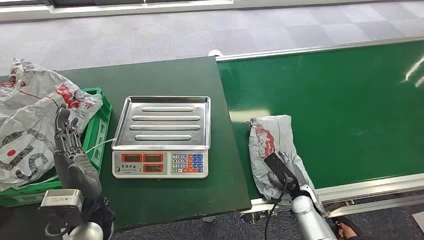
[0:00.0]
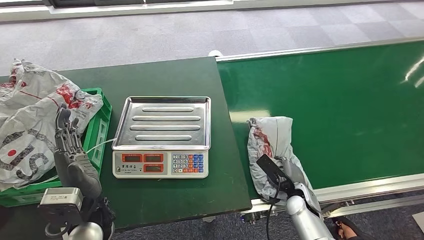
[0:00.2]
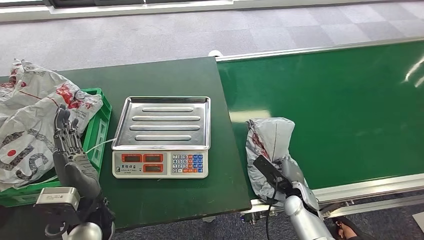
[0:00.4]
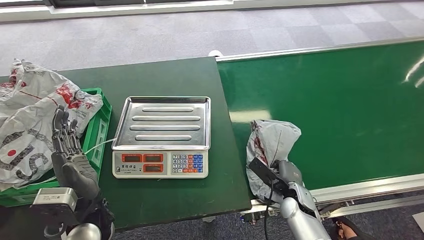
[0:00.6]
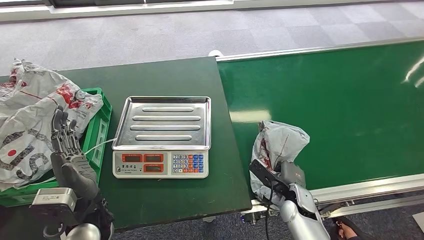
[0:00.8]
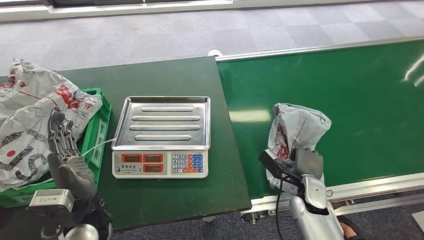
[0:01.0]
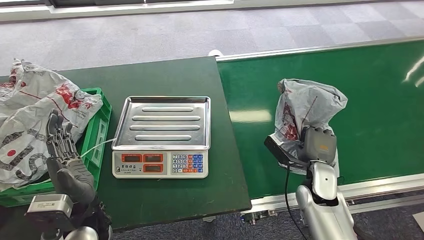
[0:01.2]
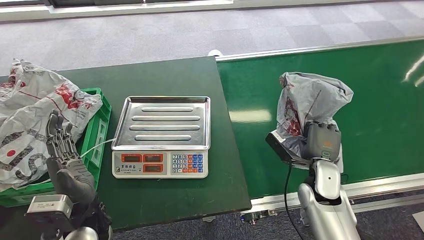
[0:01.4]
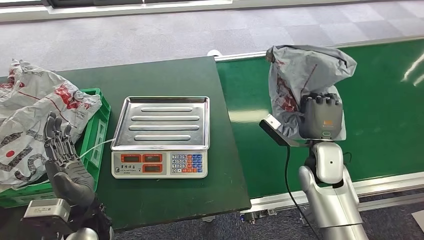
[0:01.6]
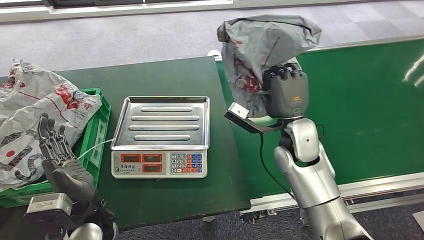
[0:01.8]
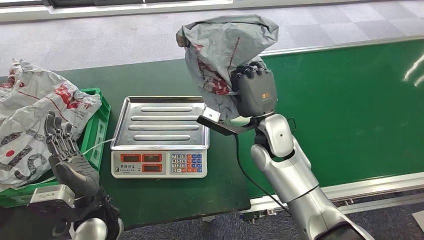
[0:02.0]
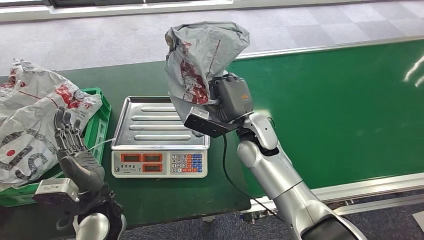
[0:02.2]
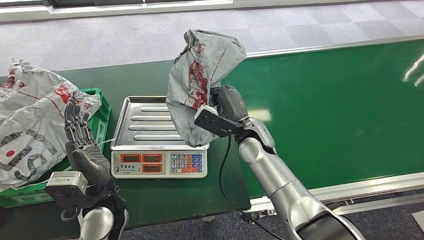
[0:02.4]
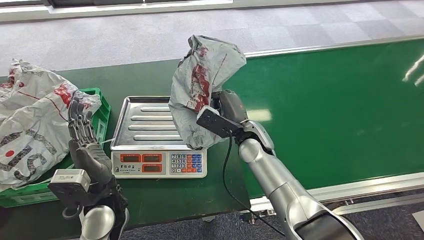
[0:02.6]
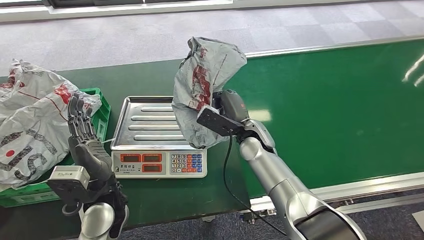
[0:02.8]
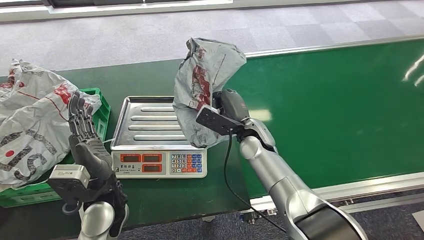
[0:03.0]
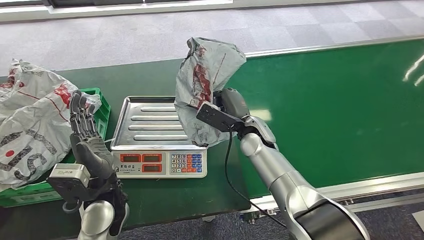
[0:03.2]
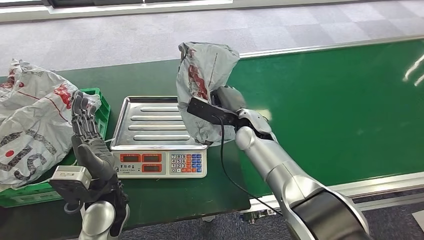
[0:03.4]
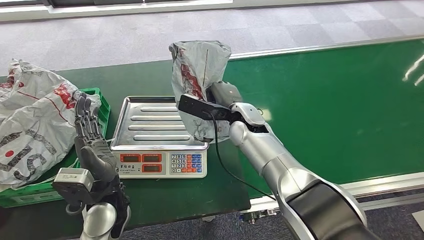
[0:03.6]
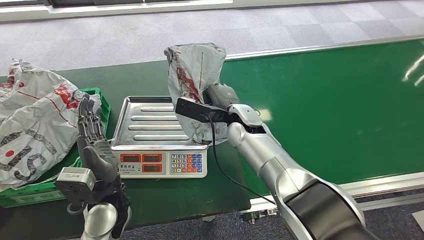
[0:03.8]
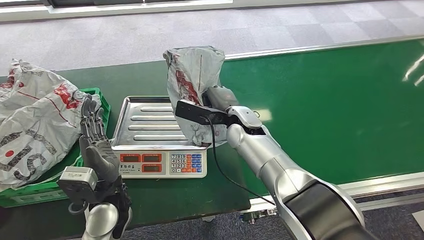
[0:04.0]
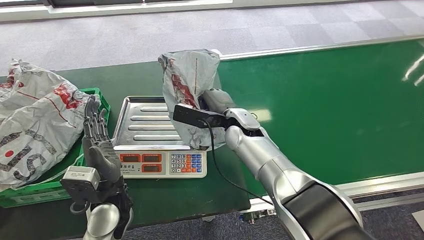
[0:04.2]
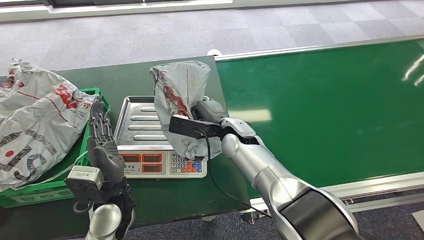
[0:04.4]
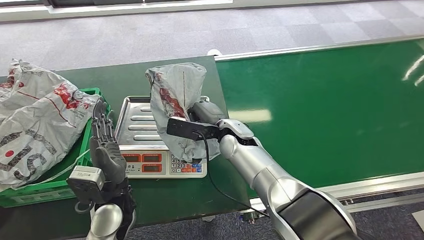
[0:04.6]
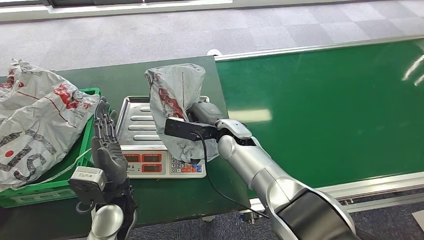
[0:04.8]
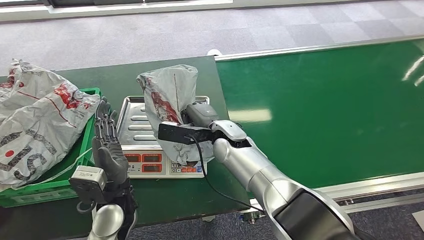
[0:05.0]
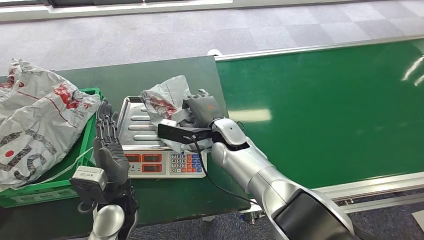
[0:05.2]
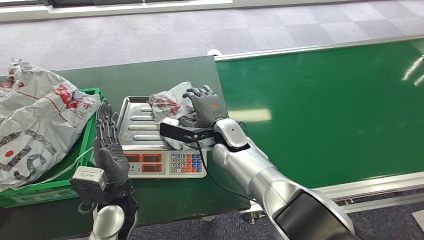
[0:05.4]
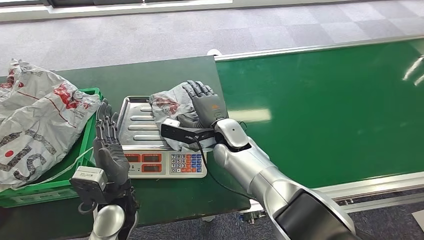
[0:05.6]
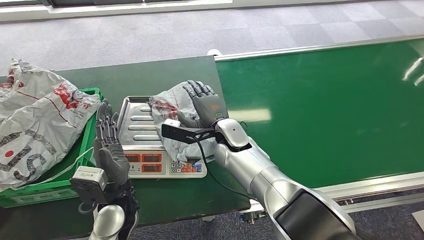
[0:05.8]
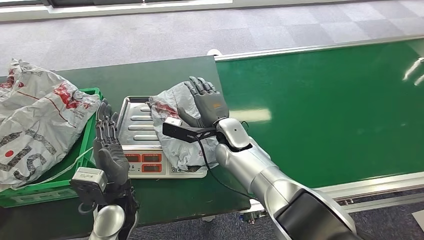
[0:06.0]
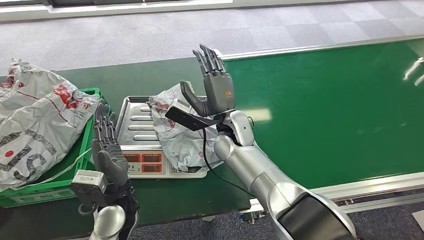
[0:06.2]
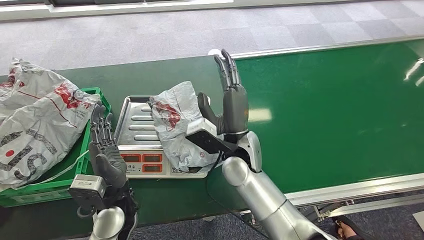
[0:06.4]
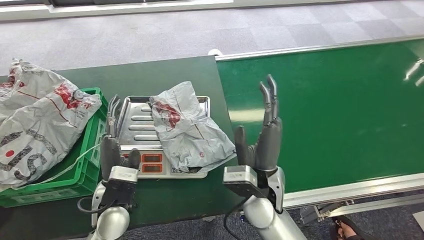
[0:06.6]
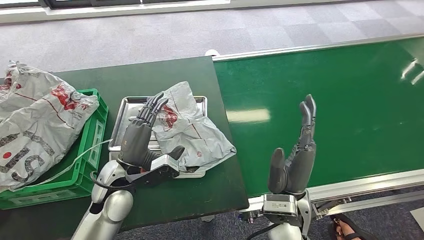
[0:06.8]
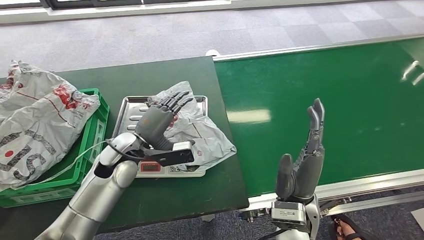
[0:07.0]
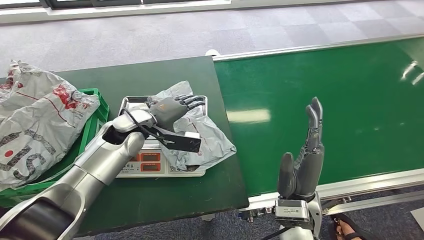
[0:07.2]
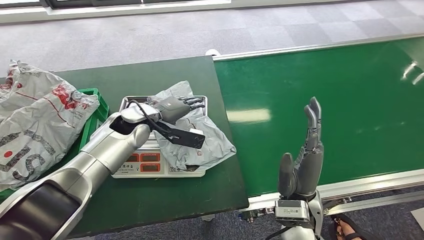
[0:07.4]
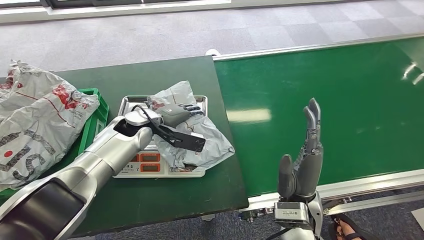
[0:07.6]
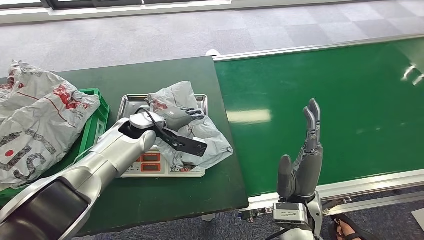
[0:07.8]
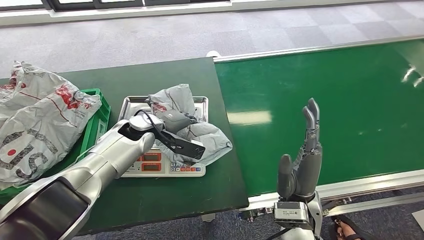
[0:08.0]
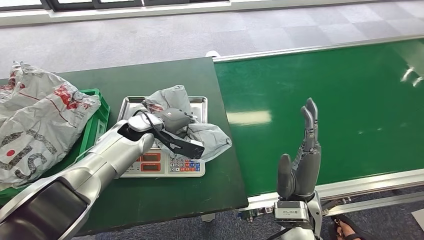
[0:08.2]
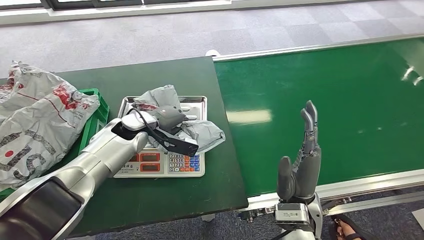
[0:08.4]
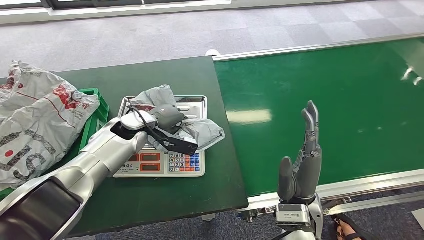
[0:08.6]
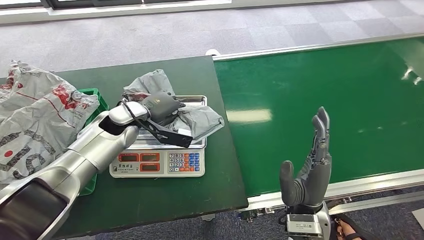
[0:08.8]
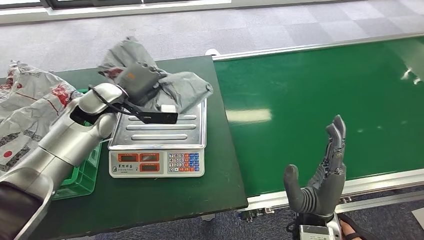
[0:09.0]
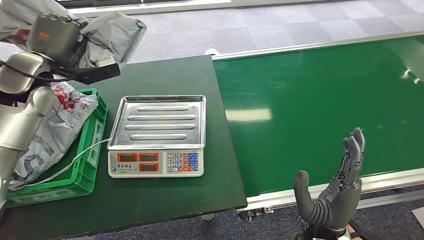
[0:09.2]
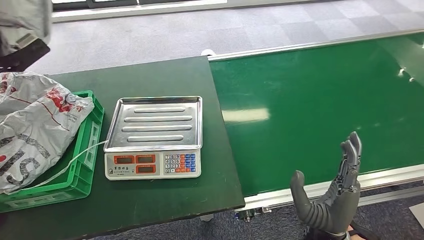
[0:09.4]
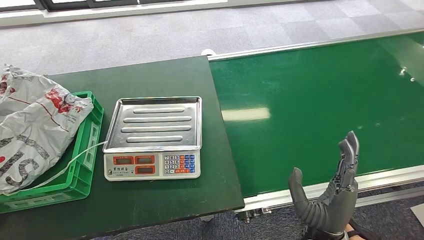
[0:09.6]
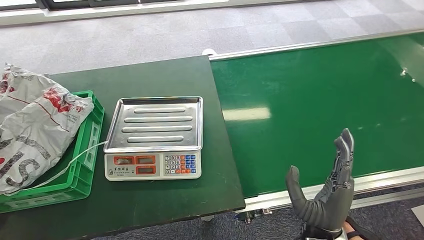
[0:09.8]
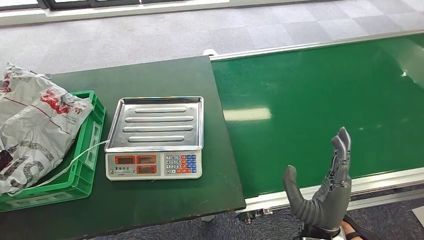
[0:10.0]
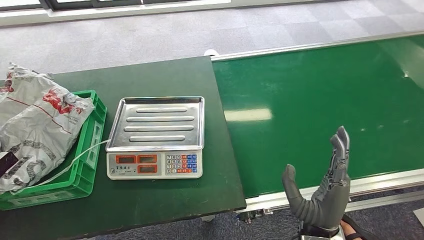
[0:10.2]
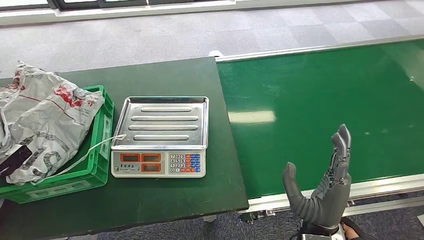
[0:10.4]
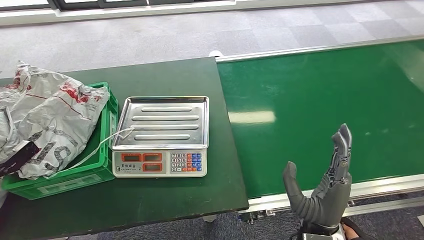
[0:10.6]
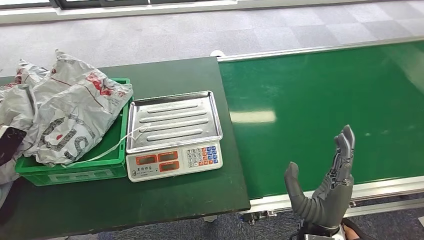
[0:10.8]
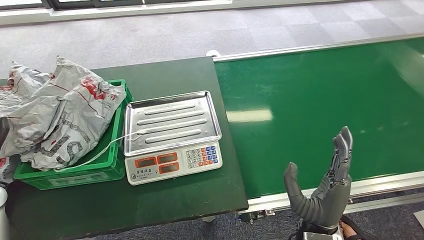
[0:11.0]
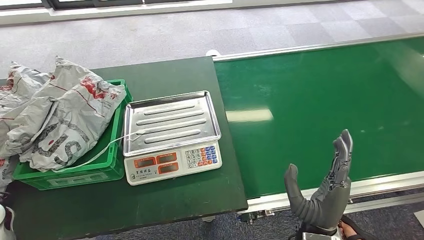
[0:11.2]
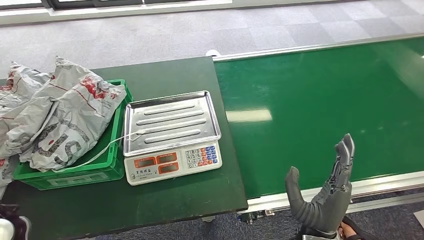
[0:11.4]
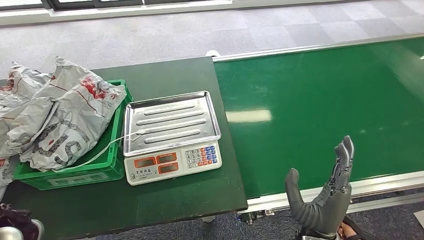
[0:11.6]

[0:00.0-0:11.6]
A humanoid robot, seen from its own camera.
Step, 0:00.0 to 0:01.6: Pick up the package from the conveyor belt.
Step, 0:02.0 to 0:06.6: Place the package onto the inbound machine.
Step, 0:06.8 to 0:09.4: Pick up the package from the inbound machine.
Step, 0:09.8 to 0:11.6: Place the package into the parcel locker.
0:02.8 to 0:04.4: The right hand moves to the left, about 5 cm.

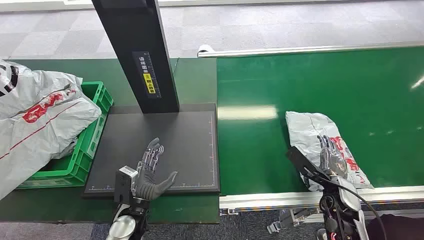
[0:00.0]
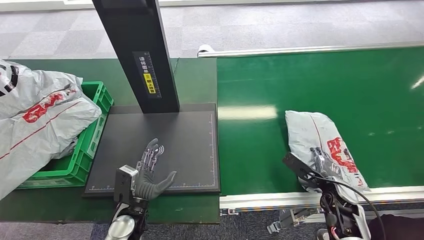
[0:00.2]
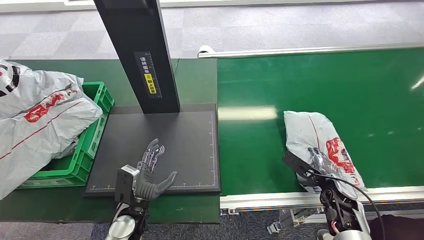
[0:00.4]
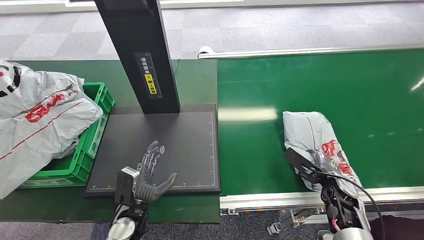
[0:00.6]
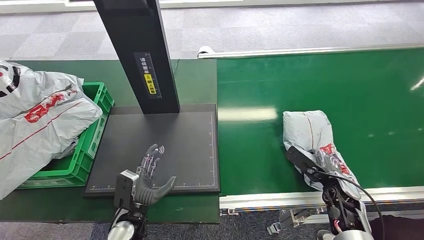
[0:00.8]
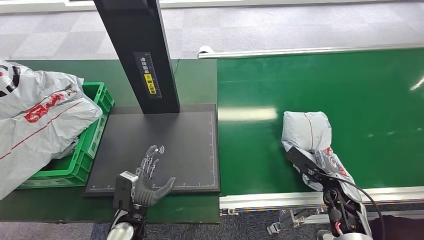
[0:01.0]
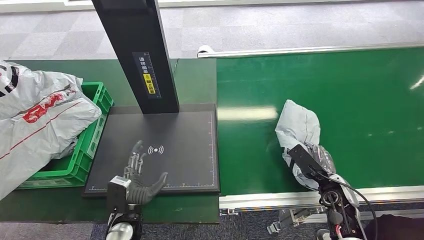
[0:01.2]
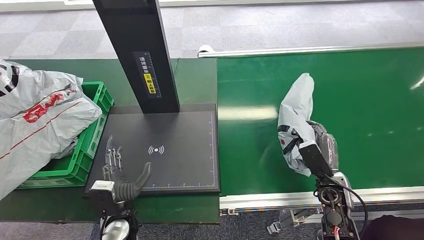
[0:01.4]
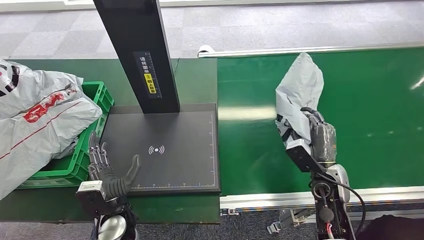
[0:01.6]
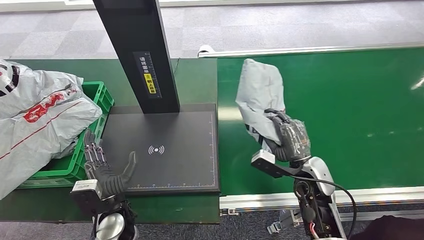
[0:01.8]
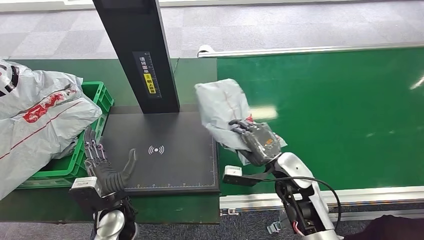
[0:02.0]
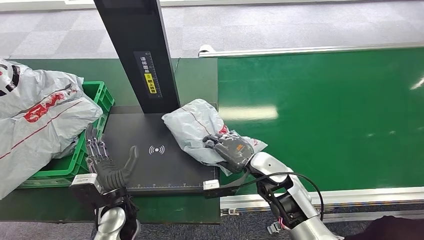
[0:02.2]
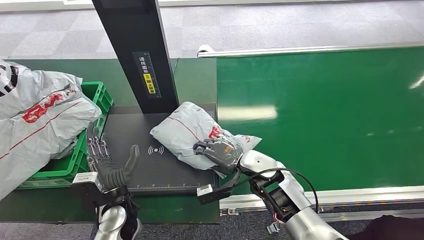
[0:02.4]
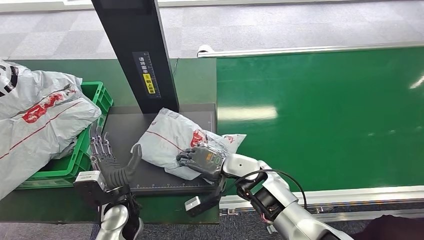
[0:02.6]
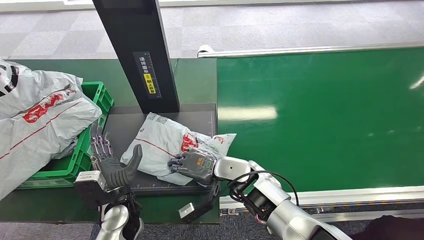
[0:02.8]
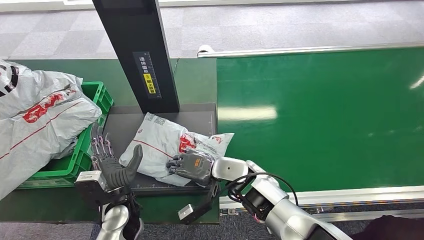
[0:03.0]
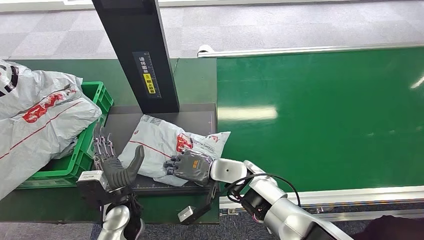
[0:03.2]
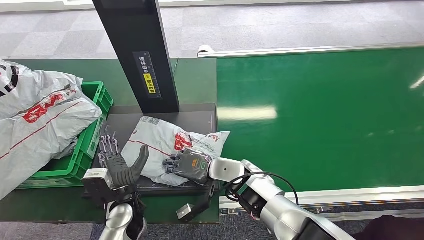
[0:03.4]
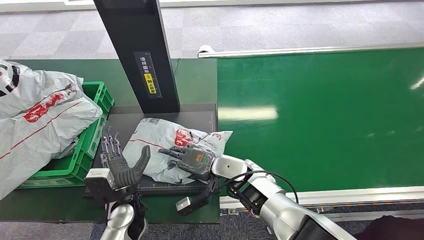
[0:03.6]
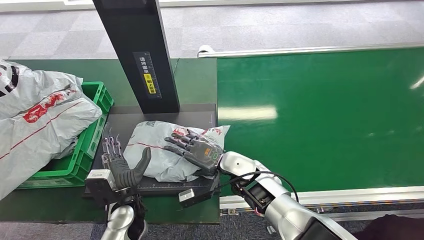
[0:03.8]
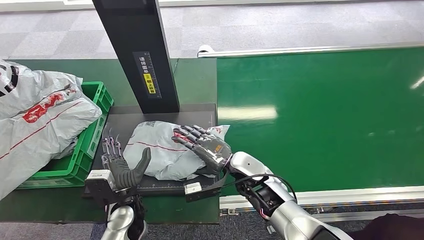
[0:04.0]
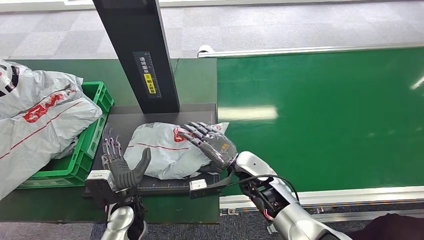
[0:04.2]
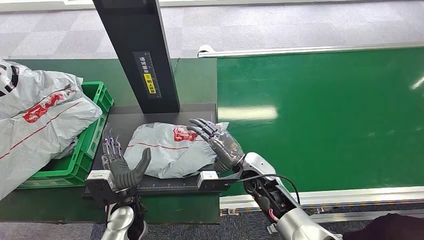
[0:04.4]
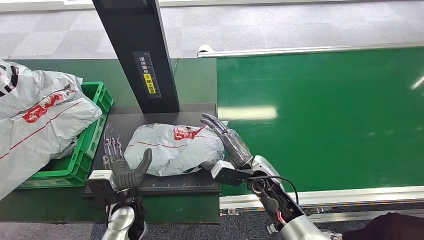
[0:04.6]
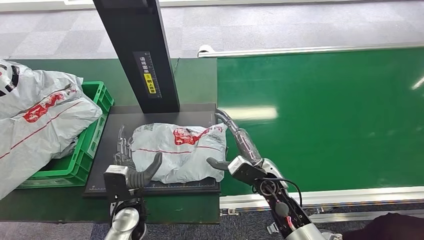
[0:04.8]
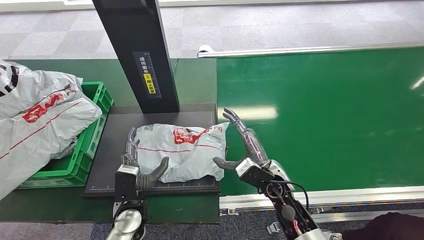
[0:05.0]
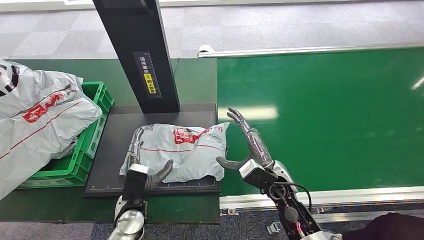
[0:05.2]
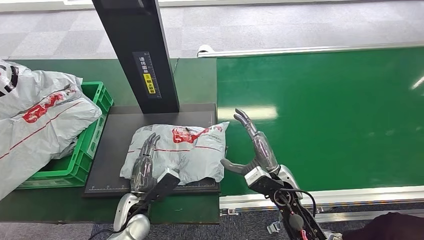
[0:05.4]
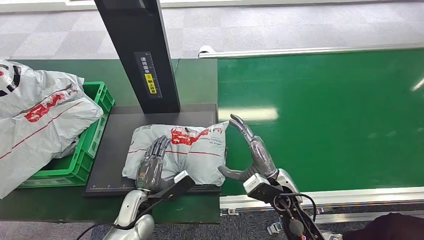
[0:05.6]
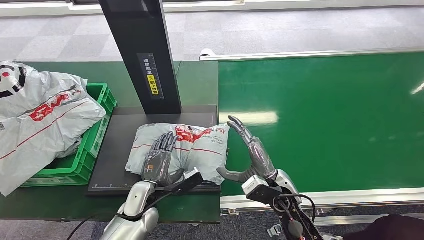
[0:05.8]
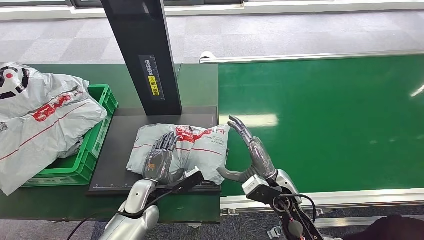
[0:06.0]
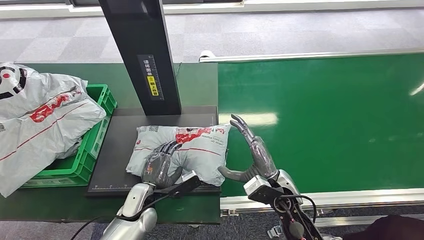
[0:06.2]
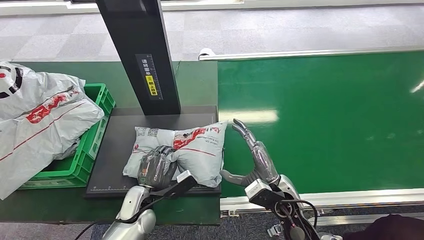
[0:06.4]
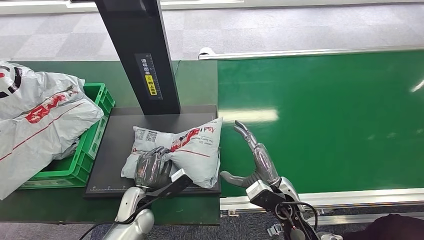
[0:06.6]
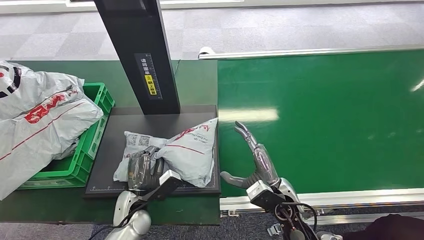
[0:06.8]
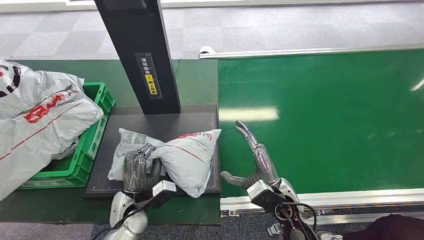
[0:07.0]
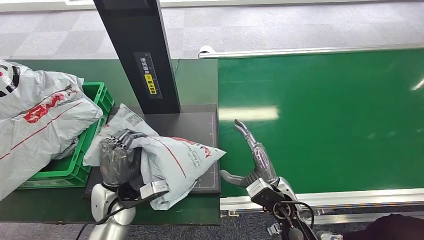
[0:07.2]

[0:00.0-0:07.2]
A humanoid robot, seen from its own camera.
Step, 0:00.0 to 0:01.6: Pick up the package from the conveyor belt.
Step, 0:02.0 to 0:03.6: Place the package onto the inbound machine.
Step, 0:04.0 to 0:07.2: Pick up the package from the inbound machine.
0:01.4 to 0:02.8: The right hand goes about 25 cm to the left.
0:02.8 to 0:04.4: The right hand shifts about 5 cm to the right.
